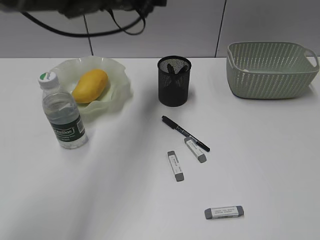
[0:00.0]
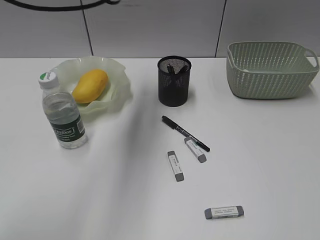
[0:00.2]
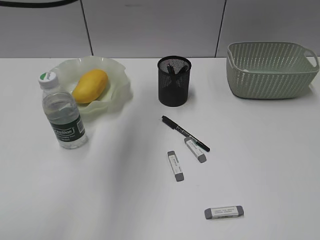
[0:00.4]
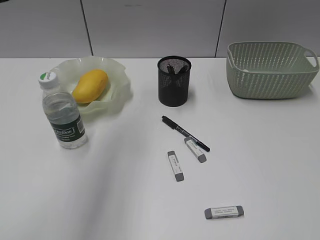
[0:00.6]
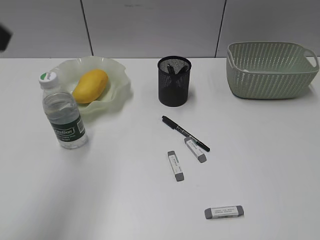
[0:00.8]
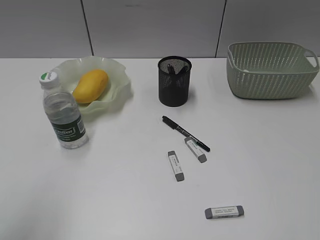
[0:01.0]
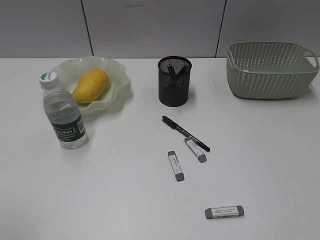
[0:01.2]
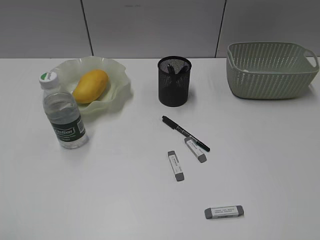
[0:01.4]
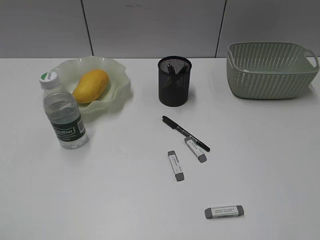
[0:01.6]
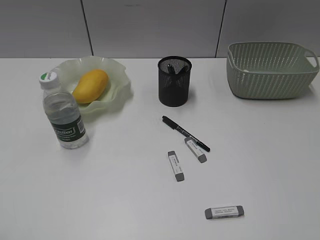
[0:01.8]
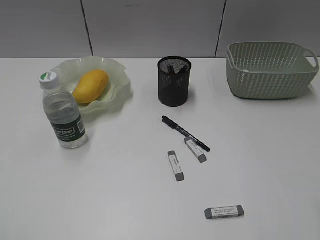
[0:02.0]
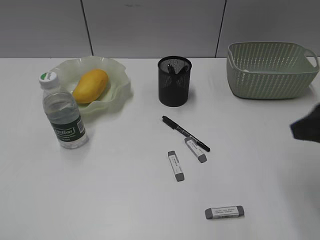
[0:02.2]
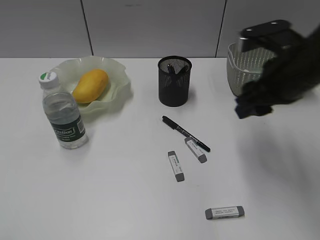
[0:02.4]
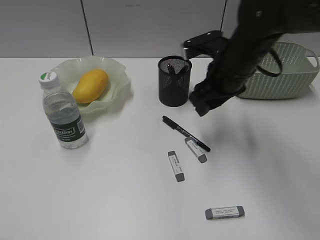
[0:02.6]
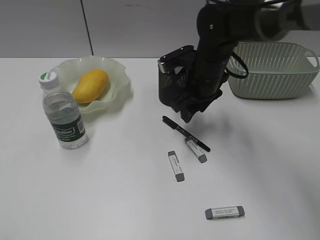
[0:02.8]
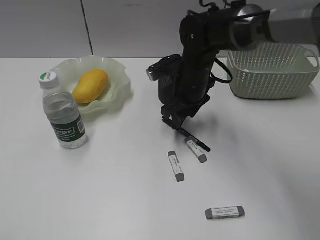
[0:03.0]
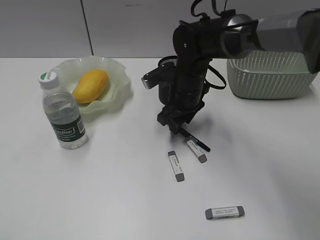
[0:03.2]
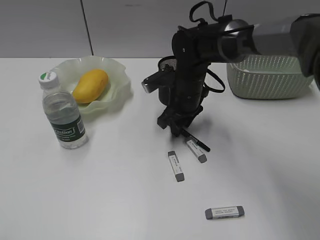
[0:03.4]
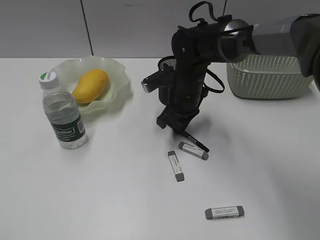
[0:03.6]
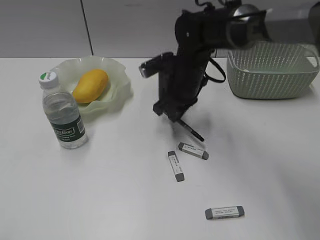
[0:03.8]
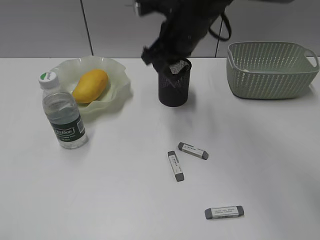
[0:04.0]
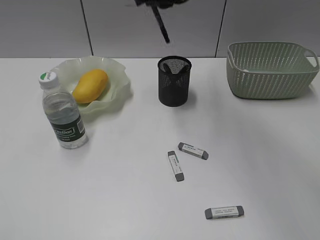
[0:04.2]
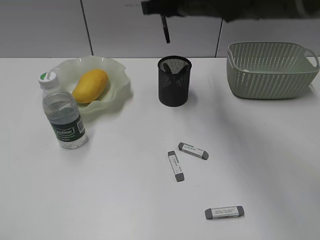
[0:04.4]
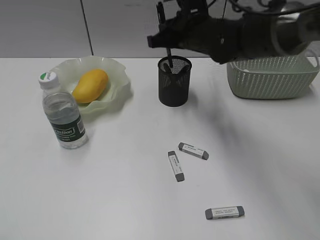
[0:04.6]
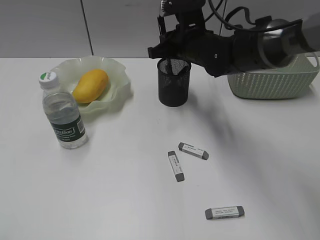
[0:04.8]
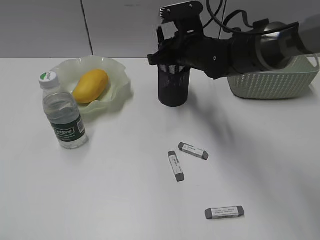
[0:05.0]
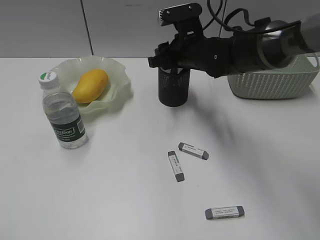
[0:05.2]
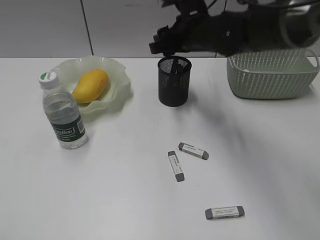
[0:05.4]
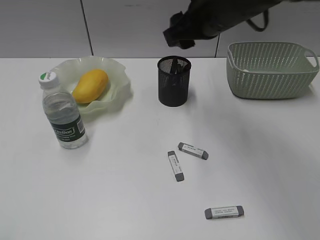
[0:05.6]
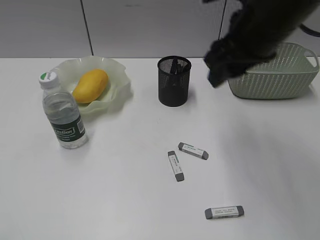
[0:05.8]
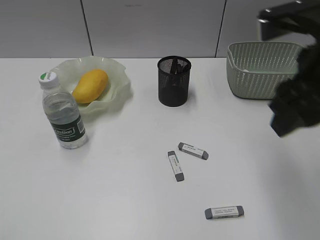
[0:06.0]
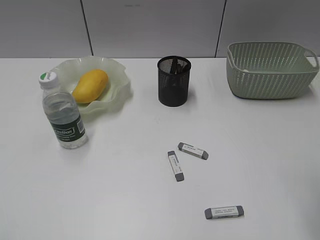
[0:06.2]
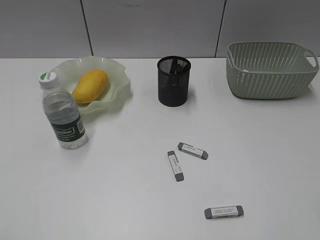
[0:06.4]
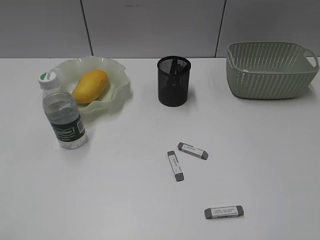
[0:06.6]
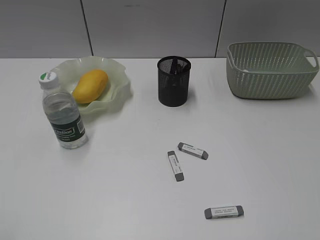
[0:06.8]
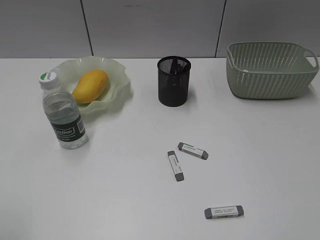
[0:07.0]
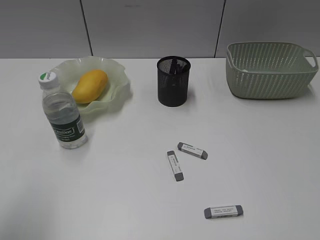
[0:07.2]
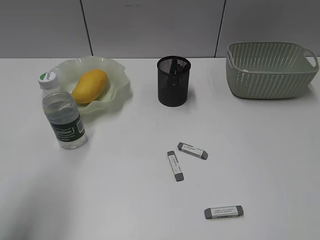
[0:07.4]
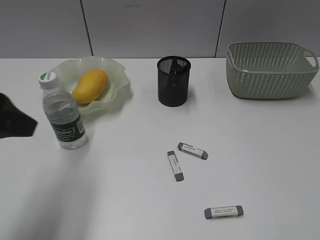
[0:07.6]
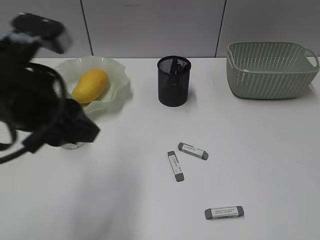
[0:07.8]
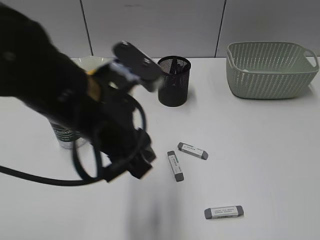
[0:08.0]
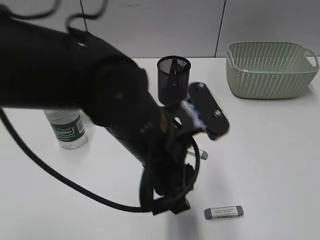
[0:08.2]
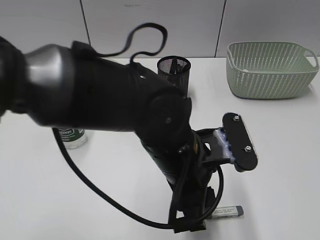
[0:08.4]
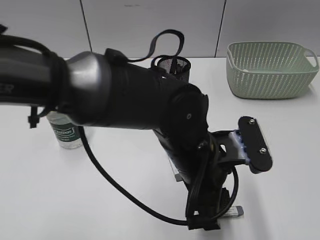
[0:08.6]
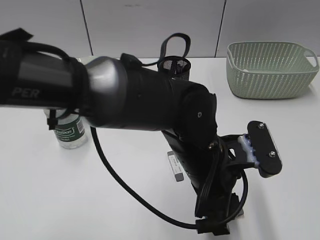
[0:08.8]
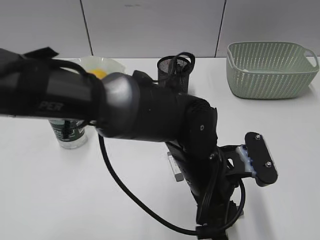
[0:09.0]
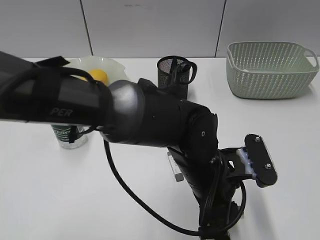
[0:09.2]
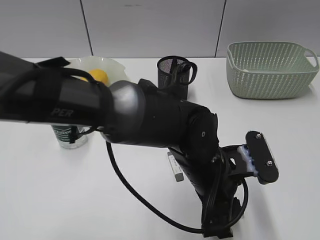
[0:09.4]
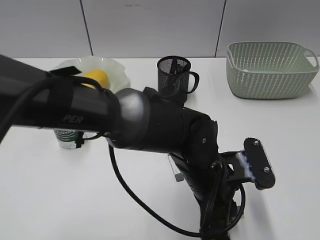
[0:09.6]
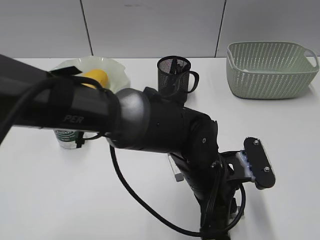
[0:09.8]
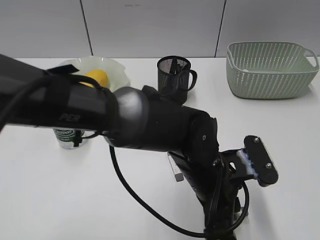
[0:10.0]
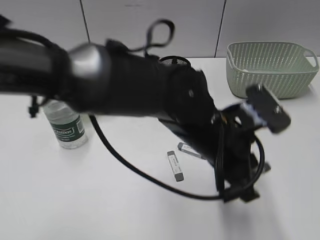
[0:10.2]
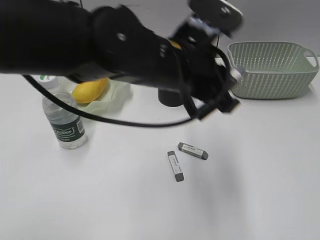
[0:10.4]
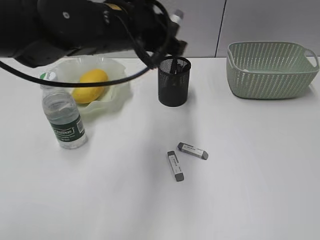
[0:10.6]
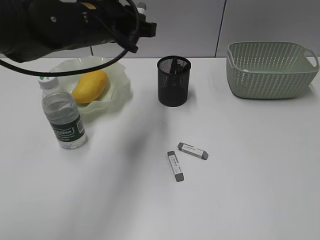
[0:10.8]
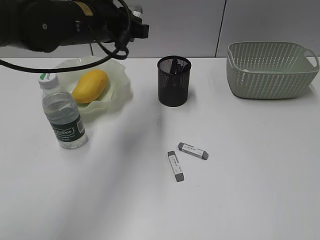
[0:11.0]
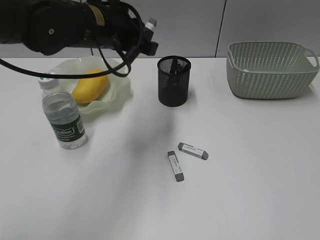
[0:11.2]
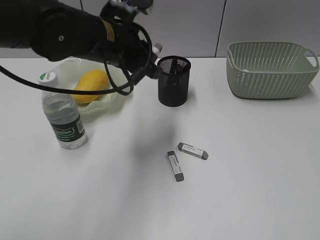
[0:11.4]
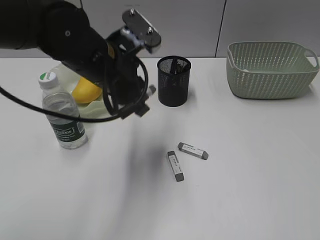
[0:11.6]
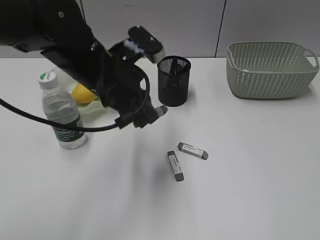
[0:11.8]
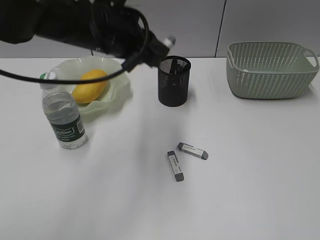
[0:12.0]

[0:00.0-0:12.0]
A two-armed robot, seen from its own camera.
Step, 0:00.0 to 0:03.6: Grasp the black pen with right gripper.
Step, 0:03.8 to 0:05.4: Place the black pen in pen holder with right gripper.
Step, 0:05.6 to 0:09.8: Grasp the eraser with left gripper.
0:00.0 to 0:01.6: The left gripper goes some 50 cm backward and to the left.
0:01.6 to 0:03.0: The right gripper travels forward and to the left by about 50 cm.
0:03.0 to 0:04.4: The right gripper is displaced upward by approximately 15 cm, and closes.
0:04.4 to 0:06.0: The right gripper is displaced backward and to the right by about 25 cm, and opens its fingers.
0:06.0 to 0:07.6: The left gripper is displaced forward and to the right by approximately 20 cm, while the right gripper shifts about 25 cm backward and to the right.
0:07.6 to 0:09.0: The left gripper goes about 30 cm to the right and downward.
0:09.0 to 0:10.4: The left gripper goes some 15 cm upward, forward and to the left, and closes up.
0:10.4 to 0:12.0: The left gripper moves to the left and forward, roughly 10 cm.

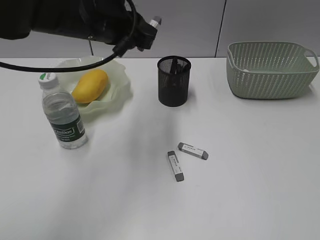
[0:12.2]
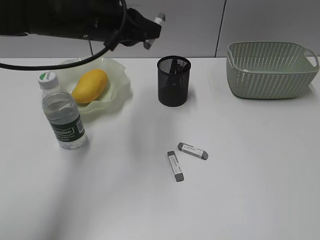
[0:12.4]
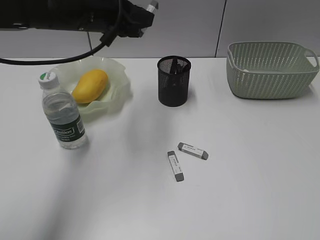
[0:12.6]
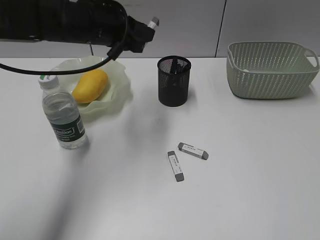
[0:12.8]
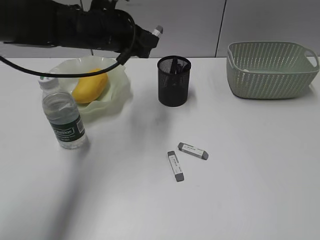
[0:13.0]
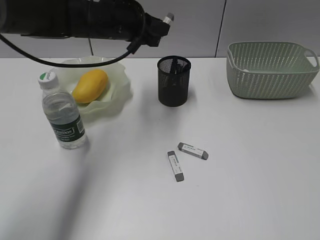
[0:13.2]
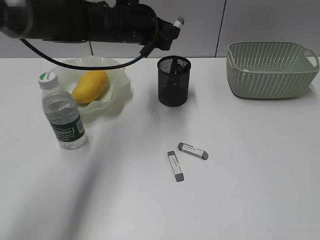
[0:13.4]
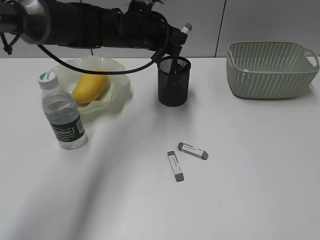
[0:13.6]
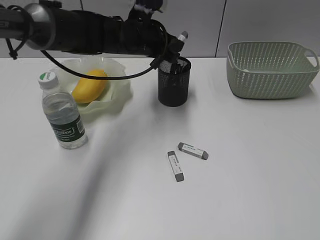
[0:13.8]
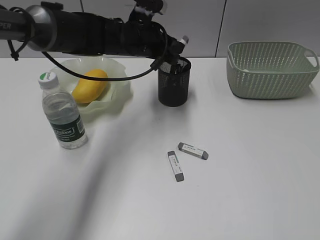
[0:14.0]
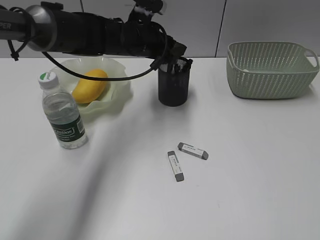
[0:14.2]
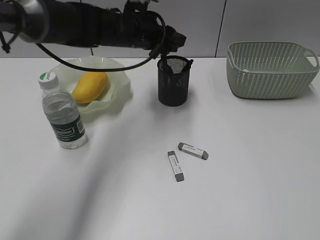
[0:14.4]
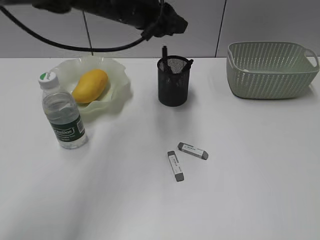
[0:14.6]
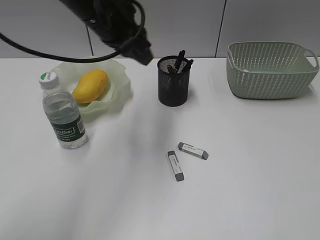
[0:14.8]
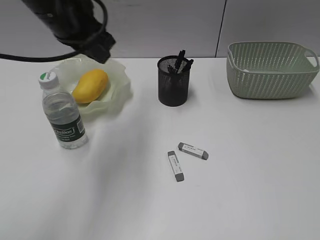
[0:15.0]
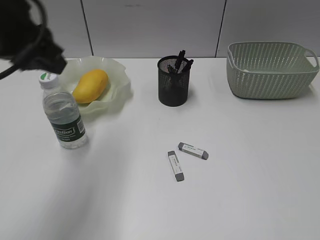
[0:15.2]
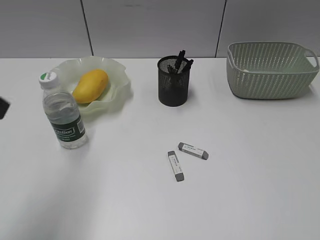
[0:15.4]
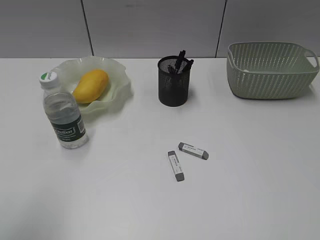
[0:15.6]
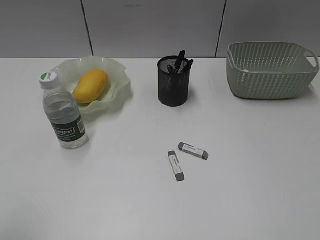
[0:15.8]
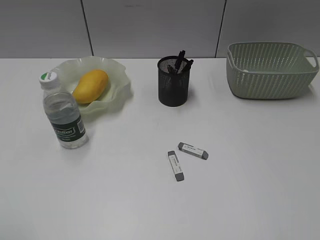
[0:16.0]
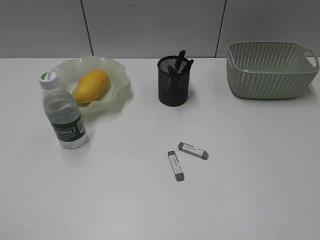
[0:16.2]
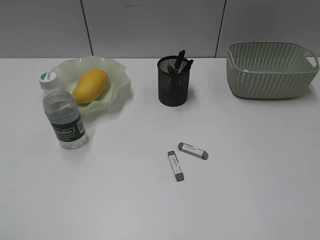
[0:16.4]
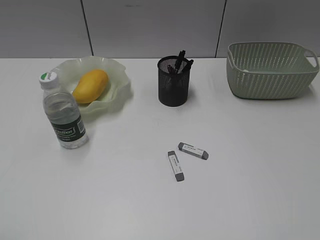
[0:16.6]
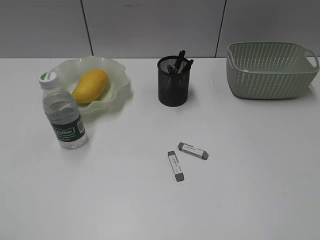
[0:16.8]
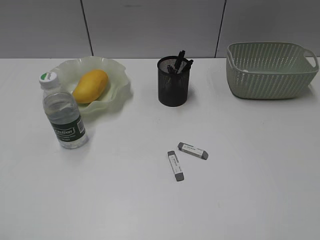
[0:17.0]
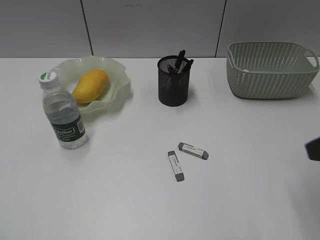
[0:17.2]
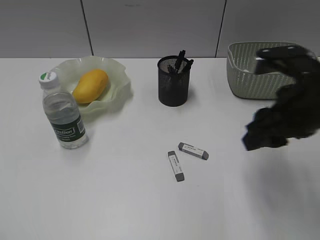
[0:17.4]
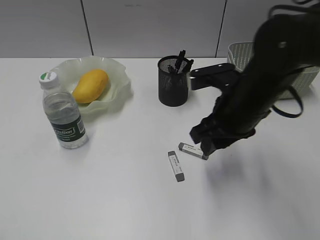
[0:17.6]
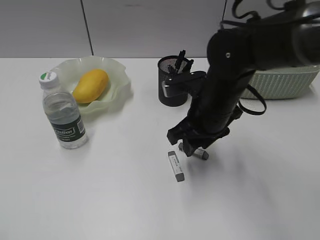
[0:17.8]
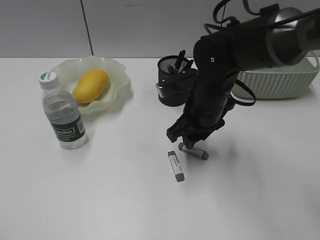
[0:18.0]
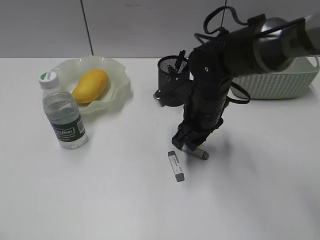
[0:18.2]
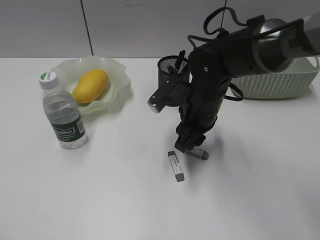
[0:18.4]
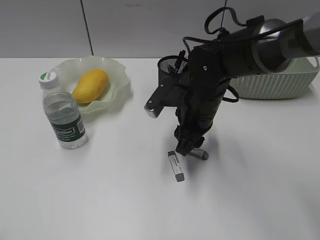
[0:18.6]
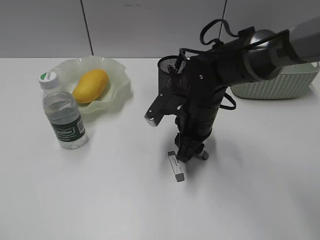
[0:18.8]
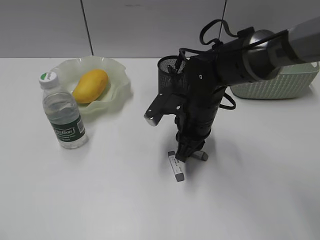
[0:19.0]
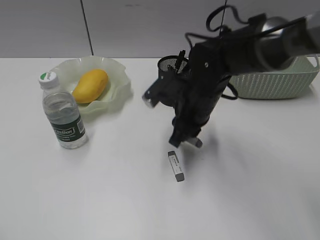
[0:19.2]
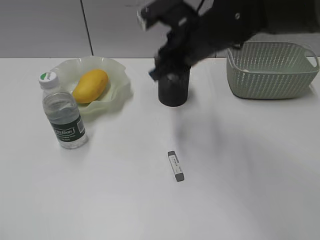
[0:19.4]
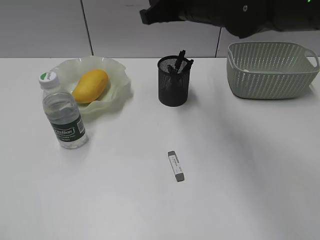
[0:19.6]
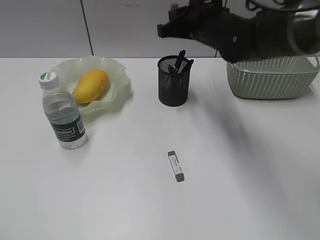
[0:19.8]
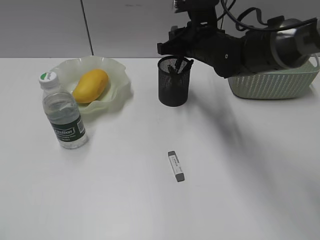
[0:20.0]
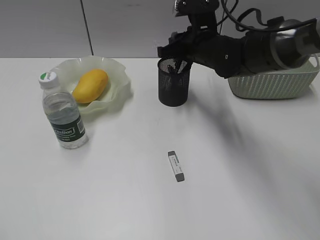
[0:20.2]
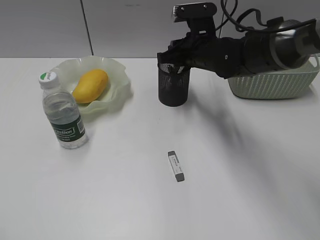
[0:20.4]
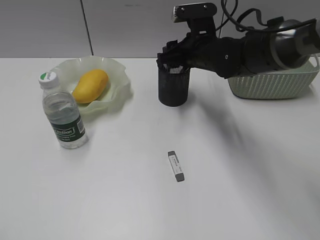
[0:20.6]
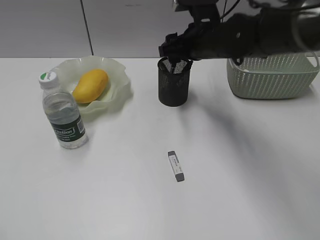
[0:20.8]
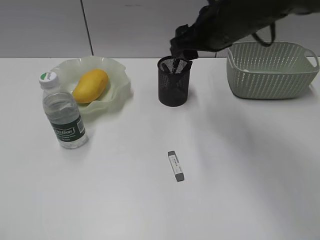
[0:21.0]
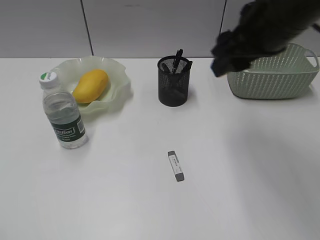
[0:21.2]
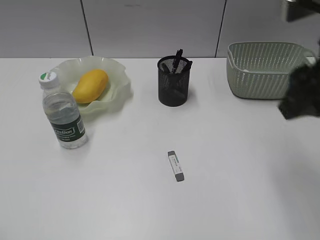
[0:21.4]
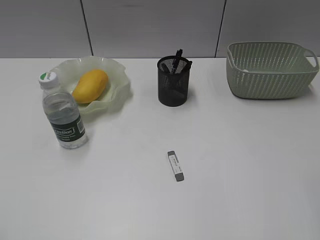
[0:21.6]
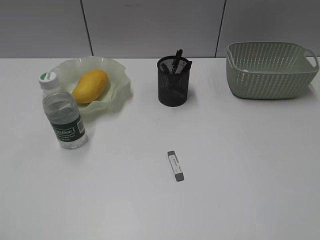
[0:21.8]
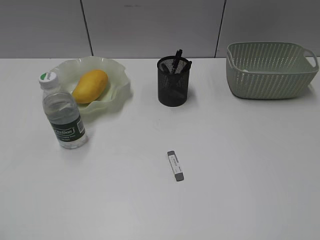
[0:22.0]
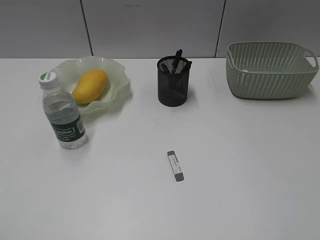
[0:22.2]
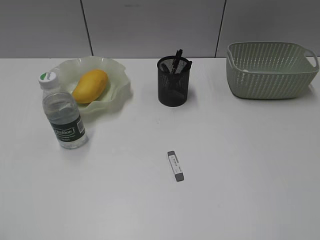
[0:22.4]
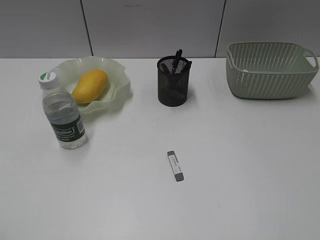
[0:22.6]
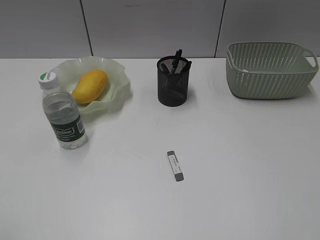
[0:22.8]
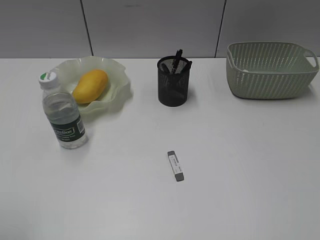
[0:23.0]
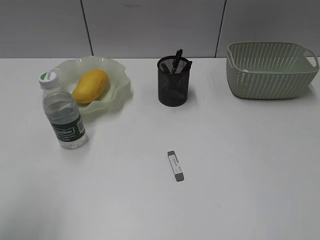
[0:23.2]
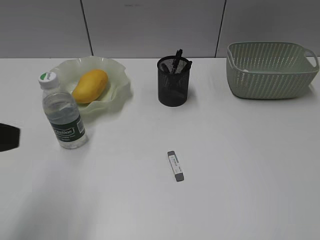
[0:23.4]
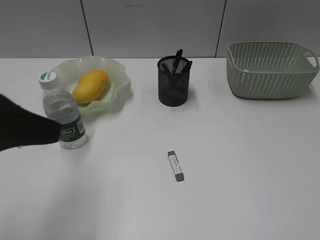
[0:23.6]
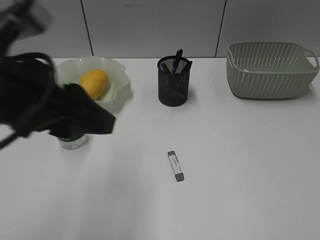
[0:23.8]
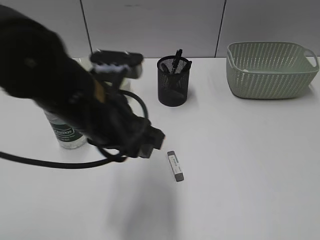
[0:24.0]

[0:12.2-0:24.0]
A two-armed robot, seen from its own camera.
Step, 0:12.2 to 0:14.2: Place the eraser in pen holder with left gripper.
Step, 0:14.4 to 0:19.0: Grasp the eraser with right gripper.
Step, 0:19.2 to 0:20.6: Place the eraser in pen holder with right gripper.
0:12.2 to 0:13.6: The left gripper shifts about 10 cm forward and downward.
0:13.6 to 0:15.2: The left gripper travels backward, to the left and upward by about 25 cm, and opens, then closes once more.
0:15.2 to 0:16.6: The left gripper travels backward and to the left by roughly 30 cm.
0:16.6 to 0:18.2: The right gripper goes some 40 cm forward, to the left and downward.
0:18.2 to 0:19.6: The right gripper goes approximately 15 cm upward, and closes.
0:19.6 to 0:21.0: The right gripper goes downward and returns, some 10 cm each way, and opens.
0:21.0 to 0:22.6: The right gripper goes about 40 cm backward and to the right.
0:22.6 to 0:24.0: The left gripper moves to the right and forward, roughly 35 cm, and opens.
